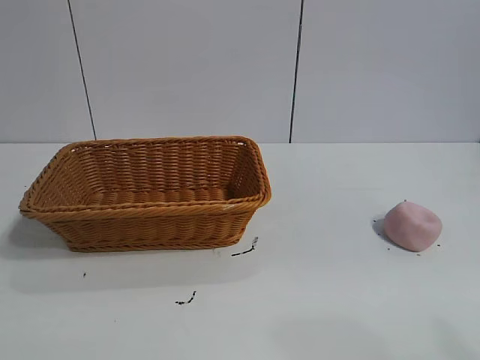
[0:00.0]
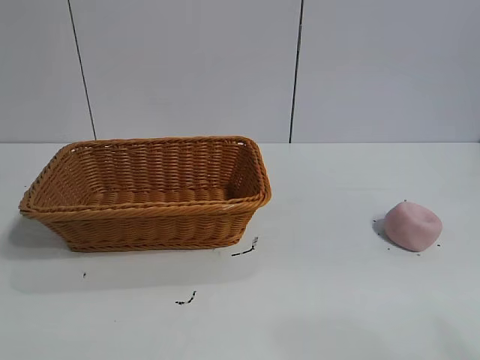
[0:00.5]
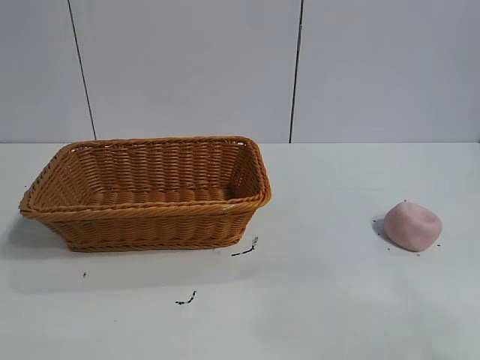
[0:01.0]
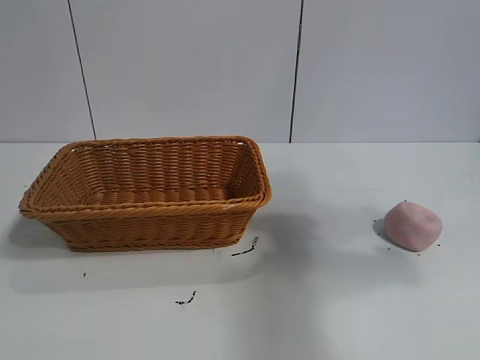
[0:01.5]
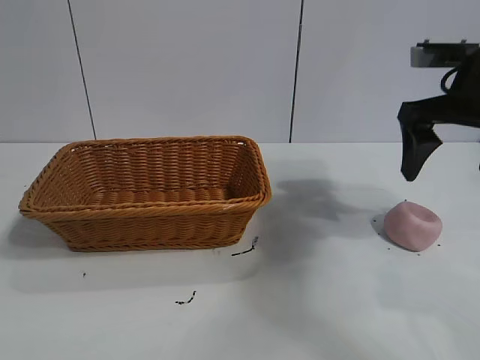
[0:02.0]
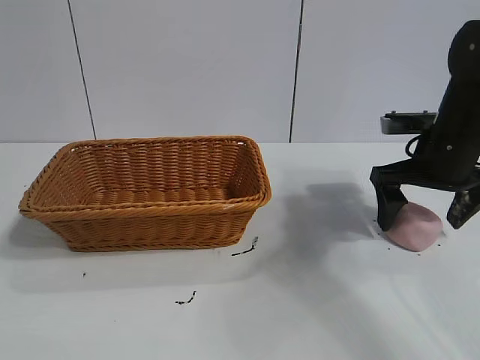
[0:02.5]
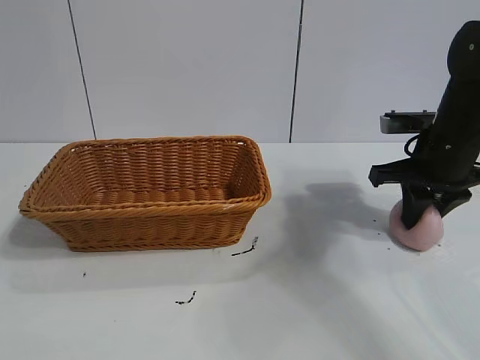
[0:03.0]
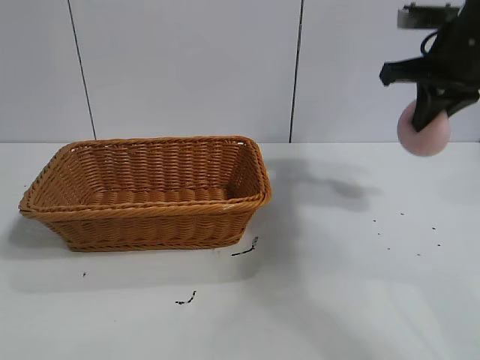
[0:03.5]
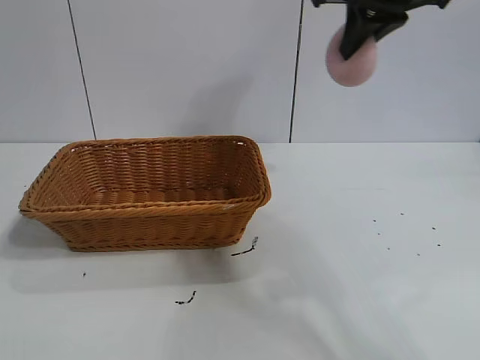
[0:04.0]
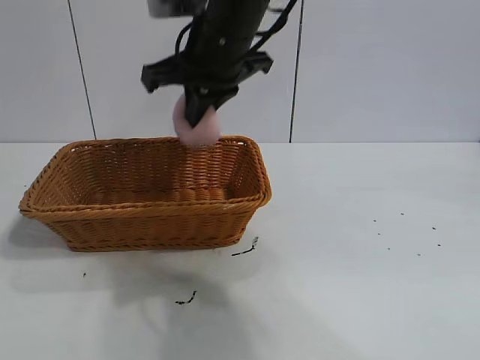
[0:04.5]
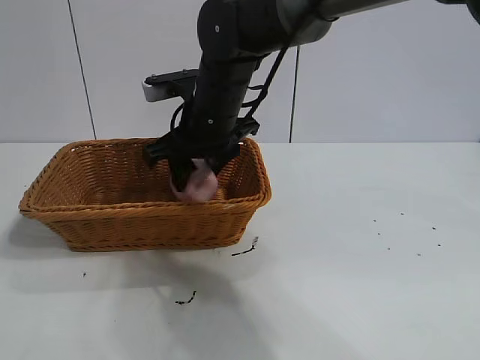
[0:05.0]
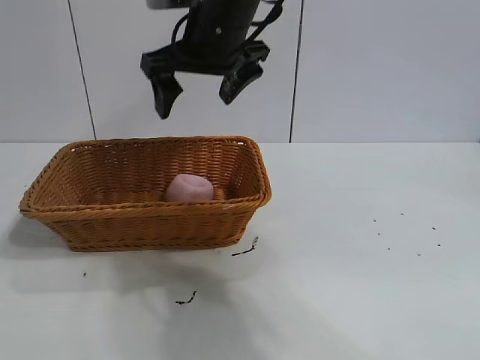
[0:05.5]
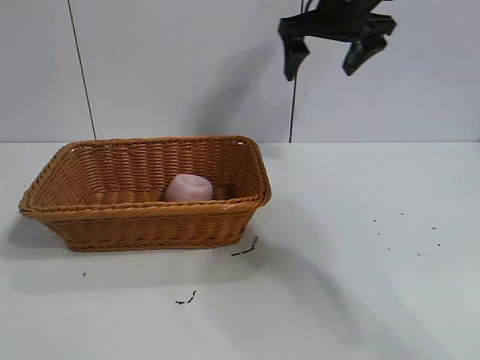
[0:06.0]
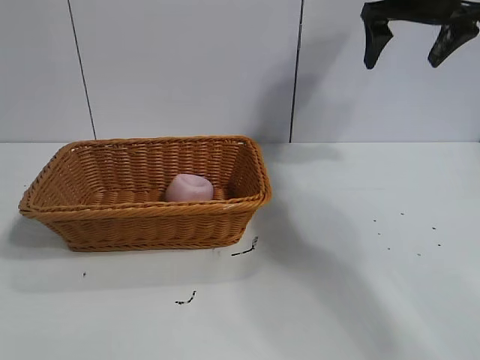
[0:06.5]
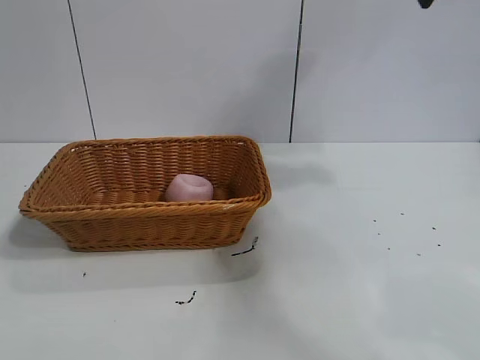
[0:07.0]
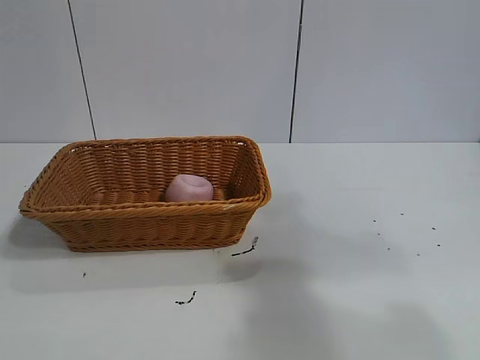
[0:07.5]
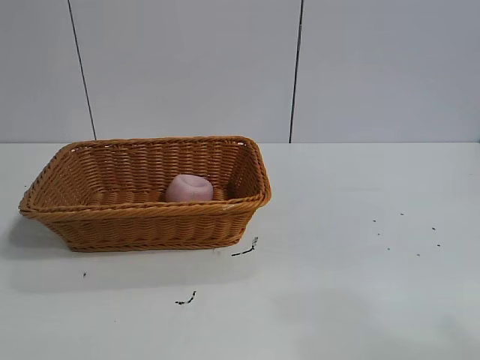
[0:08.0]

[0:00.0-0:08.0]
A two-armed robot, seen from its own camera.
Task of the whole recording: pick up the peach and put it into the basket.
Step, 0:01.0 to 0:03.0: Grasp the peach with right gripper.
Step, 0:03.5 to 0:05.0: Place the peach in the basket with right gripper.
